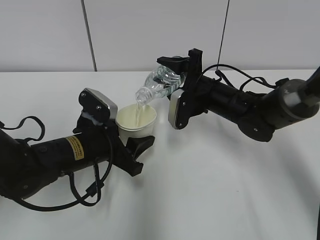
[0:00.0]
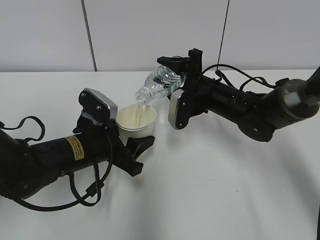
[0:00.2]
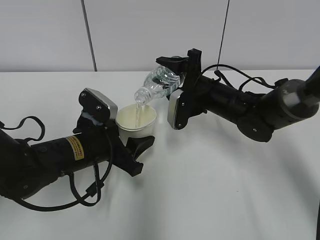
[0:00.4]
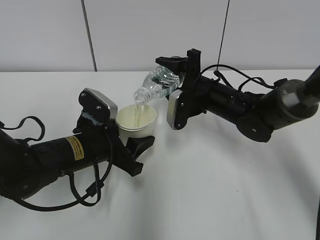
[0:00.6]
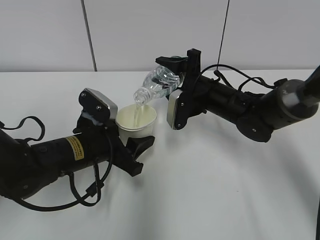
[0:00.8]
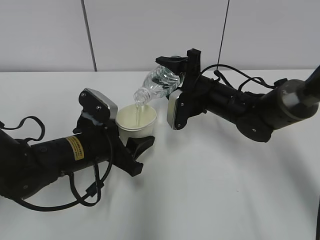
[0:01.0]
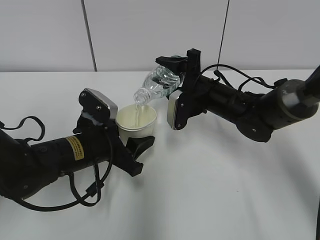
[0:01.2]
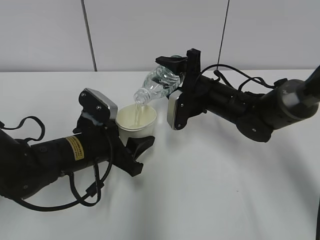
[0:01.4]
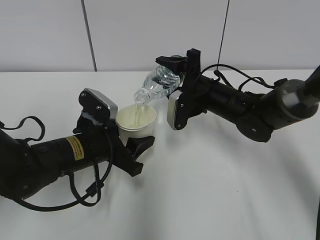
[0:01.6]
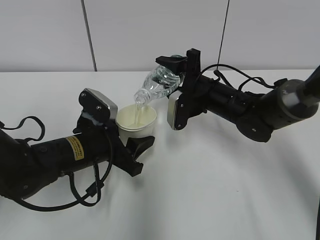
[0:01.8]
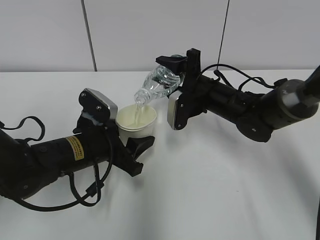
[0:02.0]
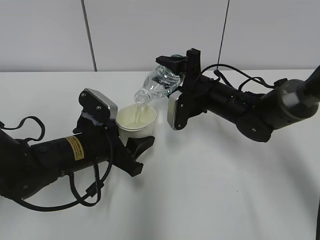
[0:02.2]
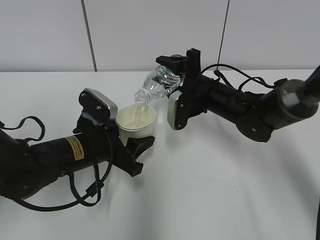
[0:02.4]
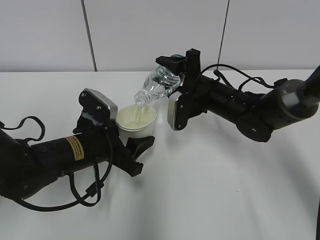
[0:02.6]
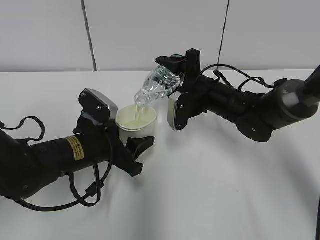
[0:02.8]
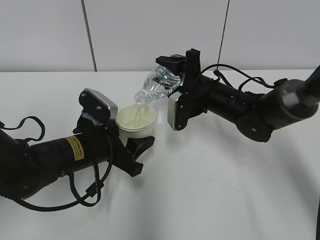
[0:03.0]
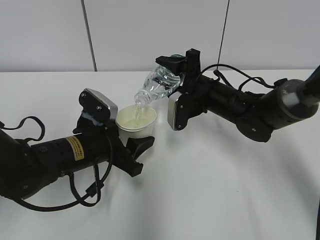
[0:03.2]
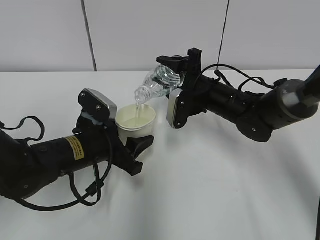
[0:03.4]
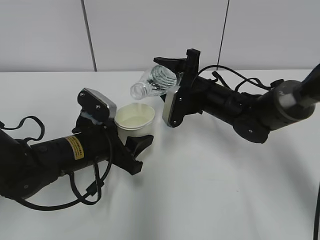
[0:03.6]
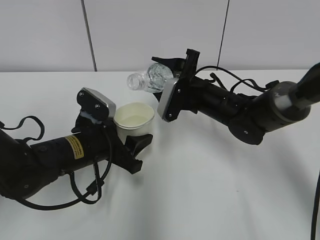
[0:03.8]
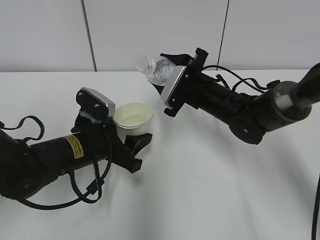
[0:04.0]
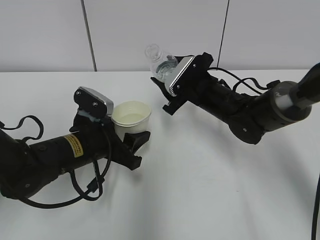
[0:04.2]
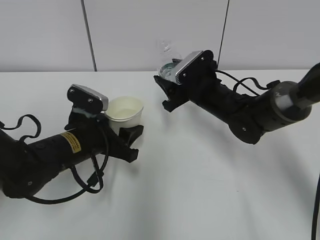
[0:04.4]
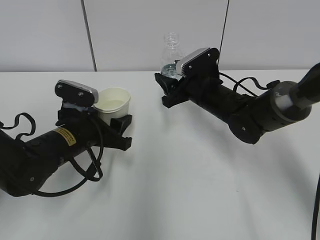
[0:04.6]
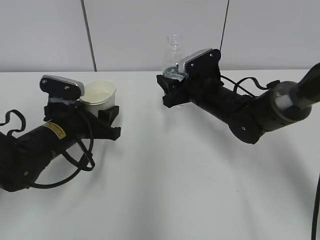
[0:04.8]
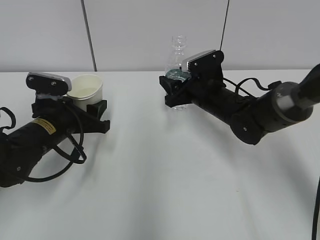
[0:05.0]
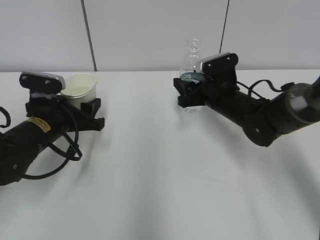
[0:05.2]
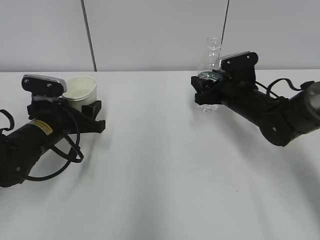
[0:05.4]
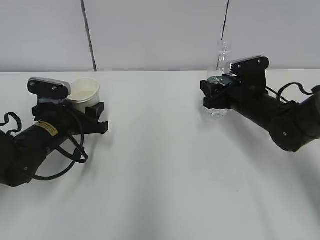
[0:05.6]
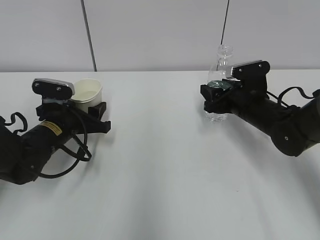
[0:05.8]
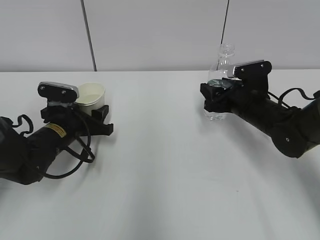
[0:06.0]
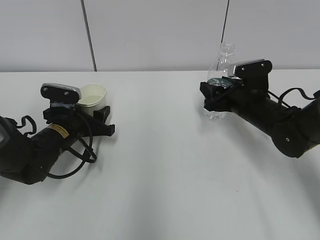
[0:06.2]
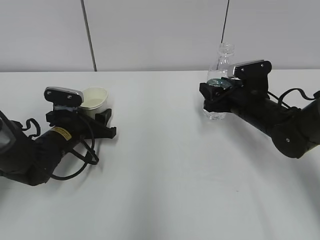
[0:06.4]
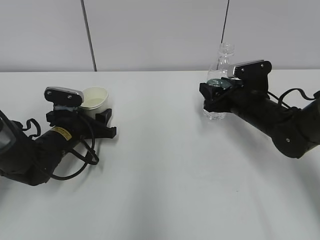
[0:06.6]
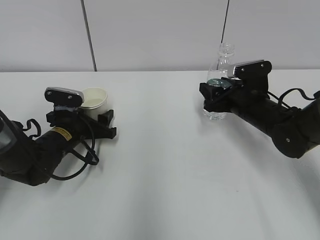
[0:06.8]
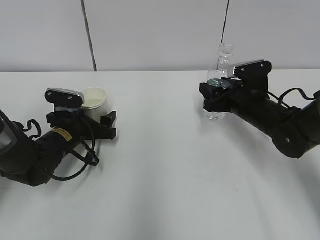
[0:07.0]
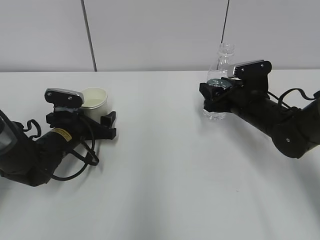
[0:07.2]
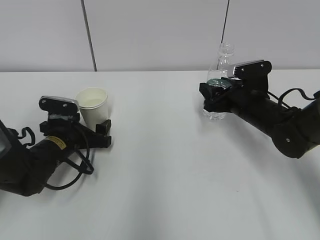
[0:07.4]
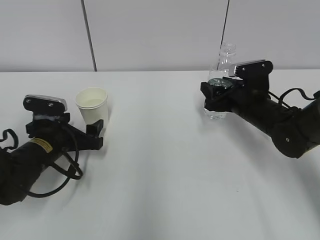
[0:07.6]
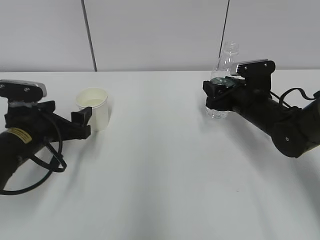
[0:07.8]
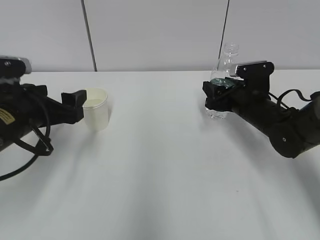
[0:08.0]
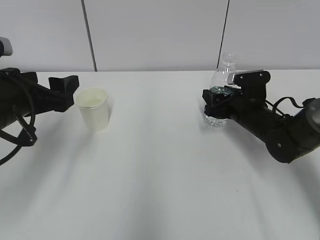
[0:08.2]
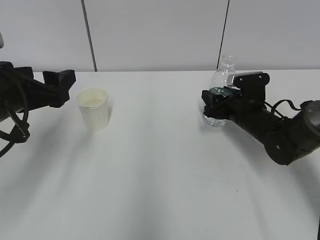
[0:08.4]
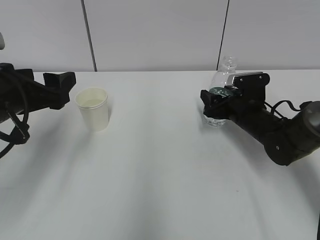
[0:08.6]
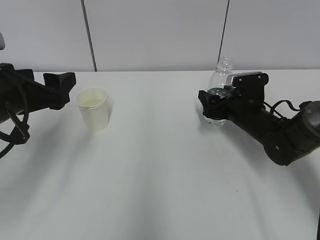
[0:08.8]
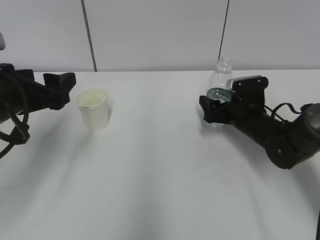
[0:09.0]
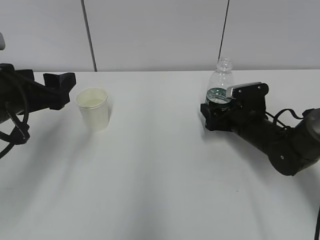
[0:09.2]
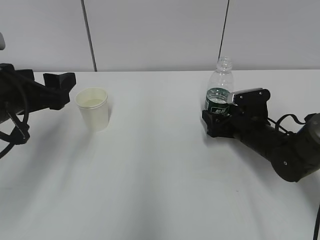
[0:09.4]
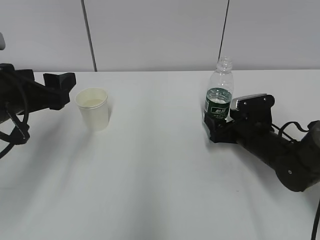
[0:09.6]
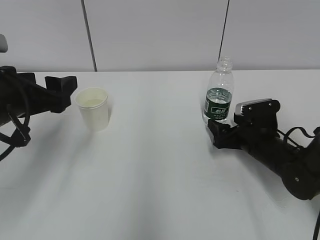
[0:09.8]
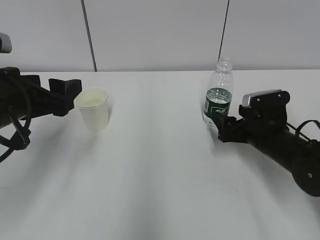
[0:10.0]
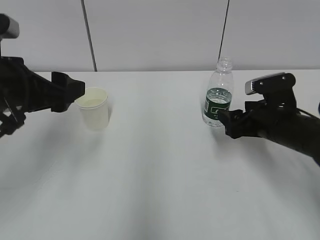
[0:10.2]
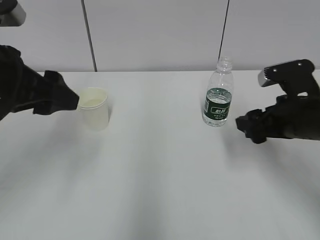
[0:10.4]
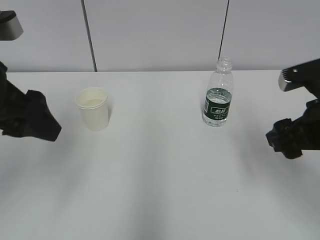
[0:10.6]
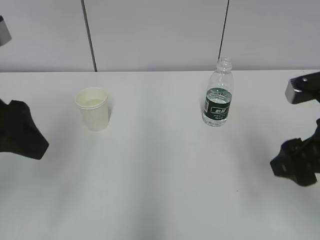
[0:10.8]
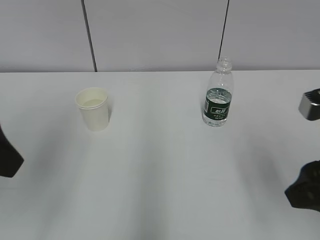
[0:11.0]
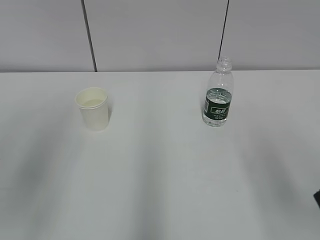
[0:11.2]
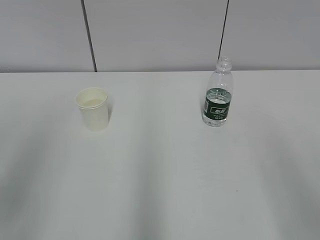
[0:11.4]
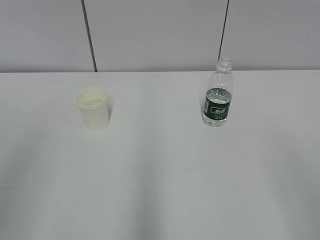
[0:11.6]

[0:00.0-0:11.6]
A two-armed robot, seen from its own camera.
Step, 0:00.0 to 0:00.6: Collect water with the right hand.
Step, 0:02.4 to 0:04.0: Place the water bottle with the right hand.
0:00.0 to 0:02.8: Both grippers stay put.
0:04.4 to 0:05.8: The left gripper goes about 10 cm to the left and forward. The right gripper goes approximately 10 cm to the right.
0:05.8 to 0:07.2: The left gripper opens up.
0:07.2 to 0:08.8: The left gripper shifts about 20 cm upward and backward. Meanwhile the right gripper opens.
0:08.8 to 0:10.2: The right gripper moves backward, roughly 10 cm.
0:10.2 to 0:11.6: The right gripper goes some 35 cm backward and upward. Meanwhile the left gripper shifts about 20 cm backward.

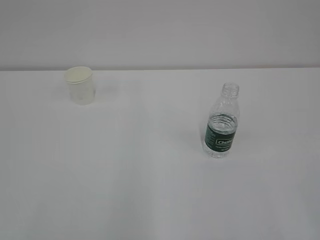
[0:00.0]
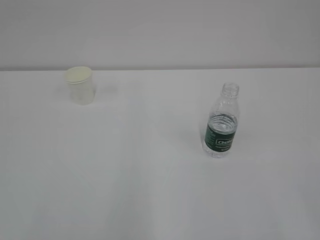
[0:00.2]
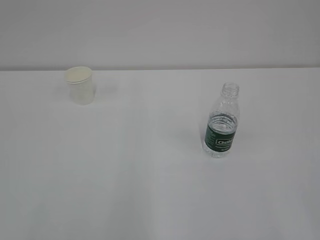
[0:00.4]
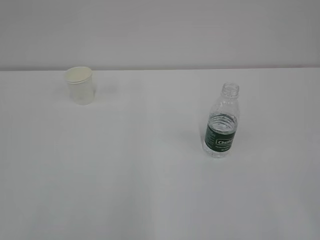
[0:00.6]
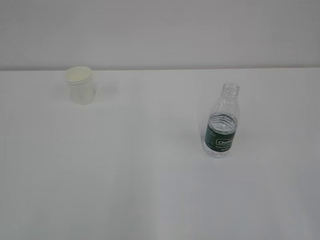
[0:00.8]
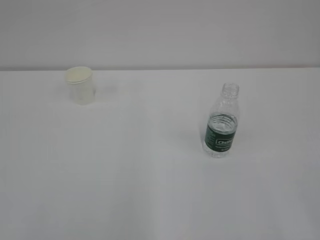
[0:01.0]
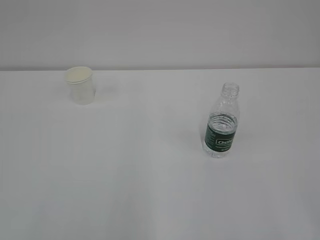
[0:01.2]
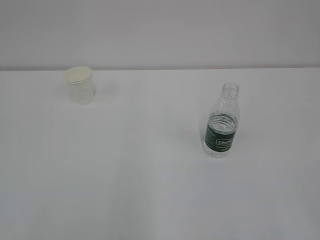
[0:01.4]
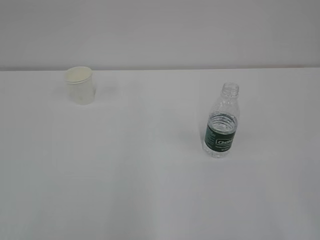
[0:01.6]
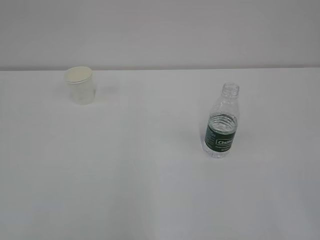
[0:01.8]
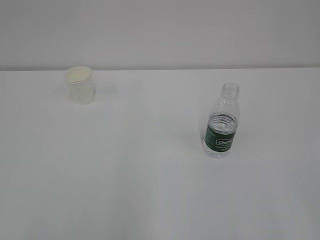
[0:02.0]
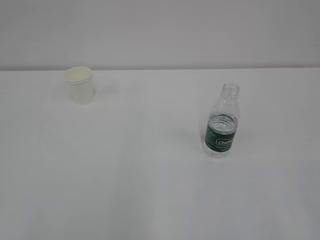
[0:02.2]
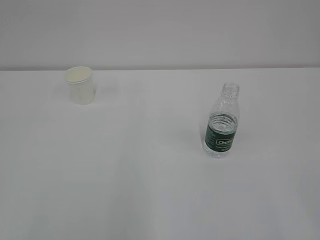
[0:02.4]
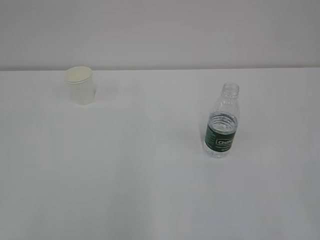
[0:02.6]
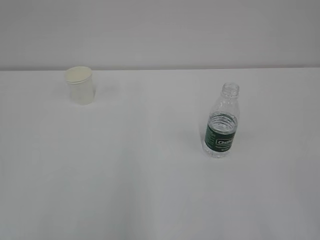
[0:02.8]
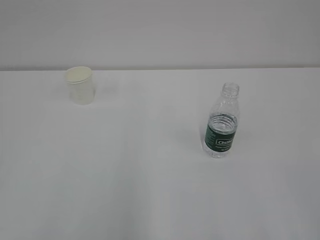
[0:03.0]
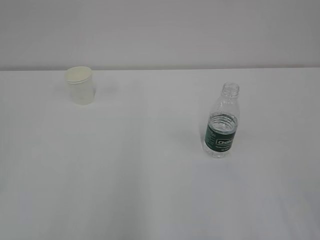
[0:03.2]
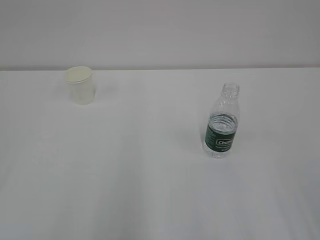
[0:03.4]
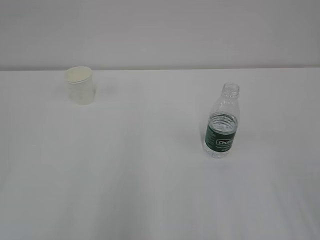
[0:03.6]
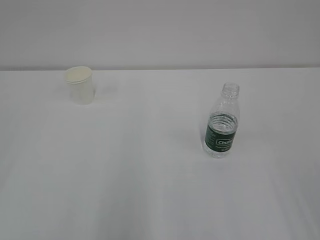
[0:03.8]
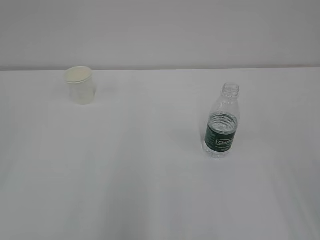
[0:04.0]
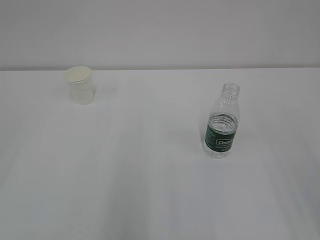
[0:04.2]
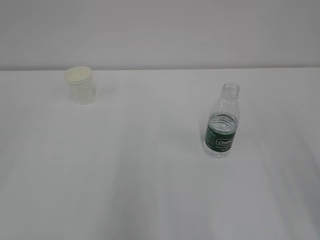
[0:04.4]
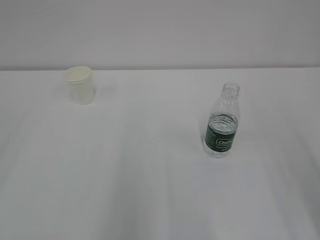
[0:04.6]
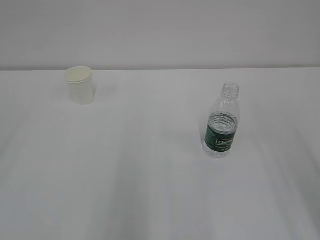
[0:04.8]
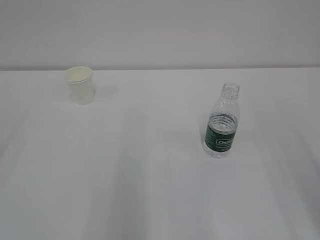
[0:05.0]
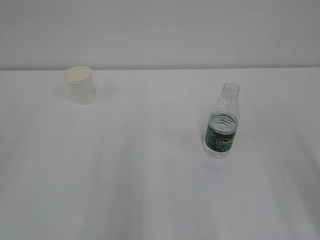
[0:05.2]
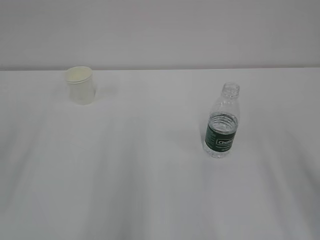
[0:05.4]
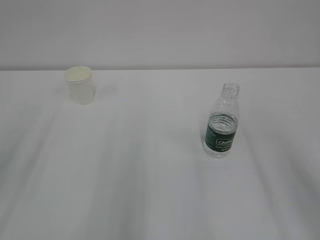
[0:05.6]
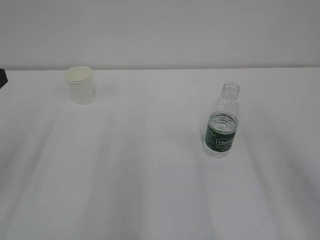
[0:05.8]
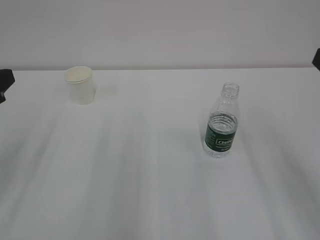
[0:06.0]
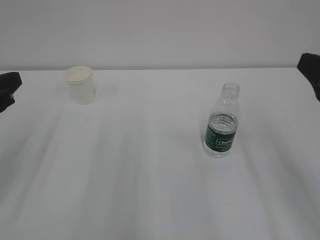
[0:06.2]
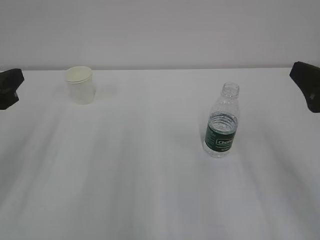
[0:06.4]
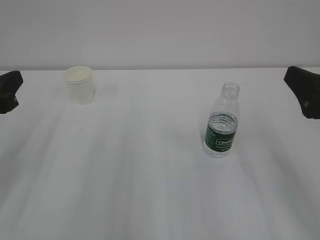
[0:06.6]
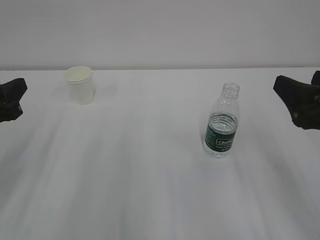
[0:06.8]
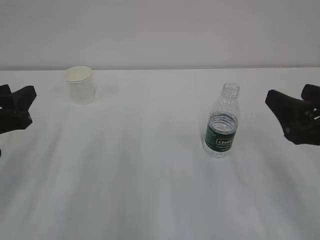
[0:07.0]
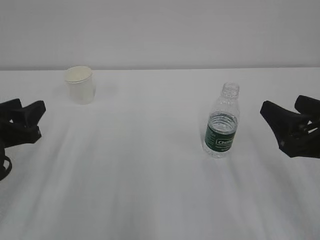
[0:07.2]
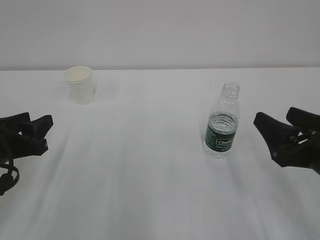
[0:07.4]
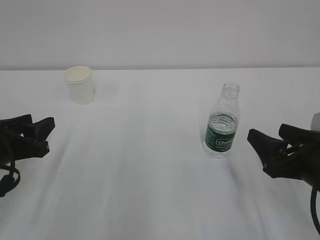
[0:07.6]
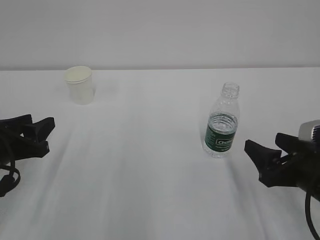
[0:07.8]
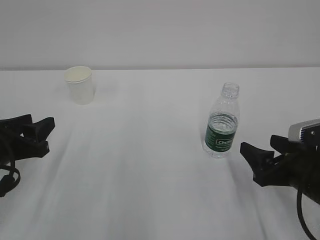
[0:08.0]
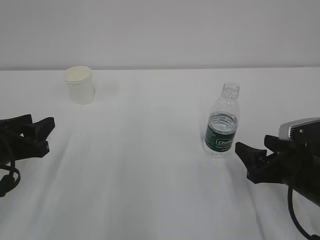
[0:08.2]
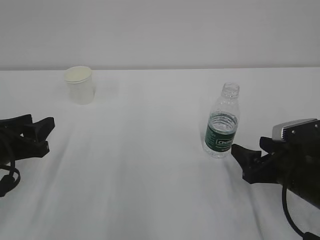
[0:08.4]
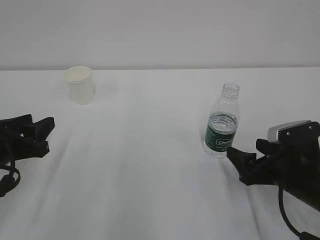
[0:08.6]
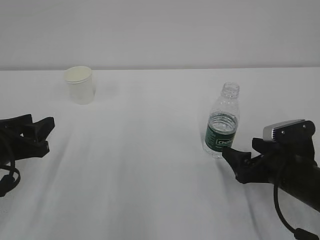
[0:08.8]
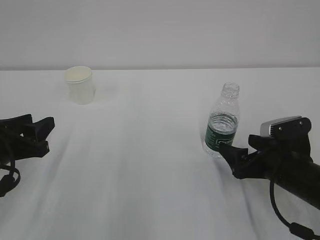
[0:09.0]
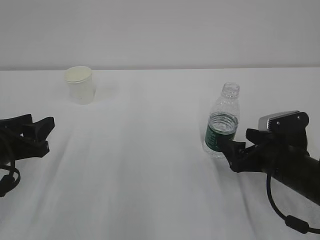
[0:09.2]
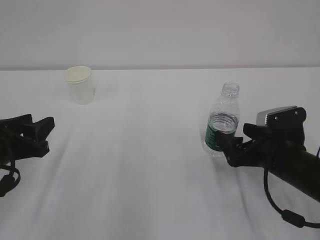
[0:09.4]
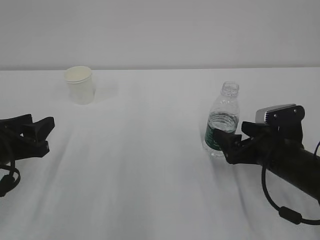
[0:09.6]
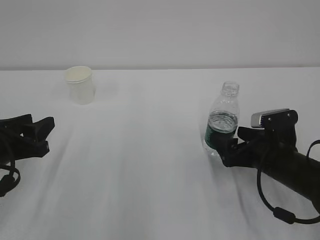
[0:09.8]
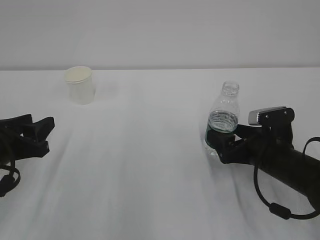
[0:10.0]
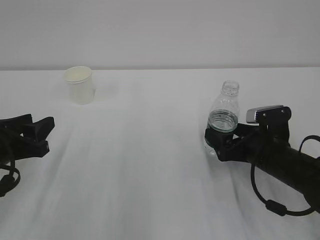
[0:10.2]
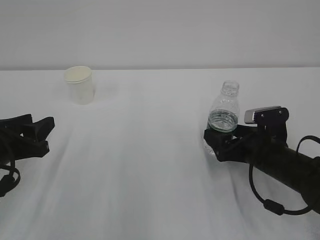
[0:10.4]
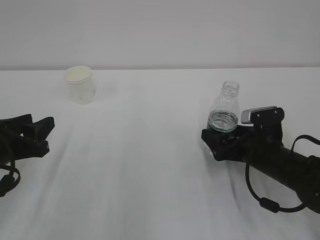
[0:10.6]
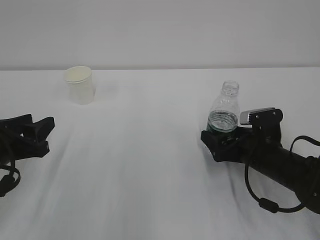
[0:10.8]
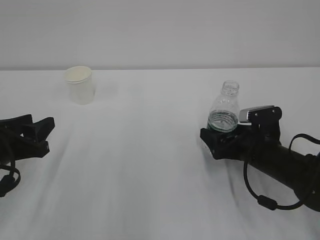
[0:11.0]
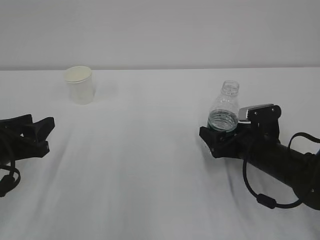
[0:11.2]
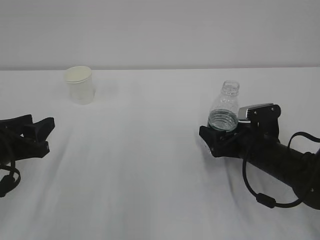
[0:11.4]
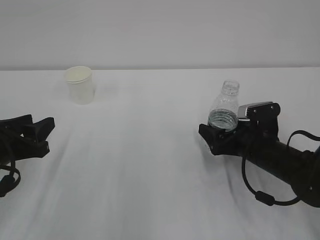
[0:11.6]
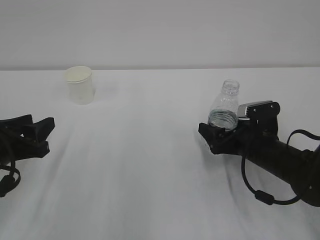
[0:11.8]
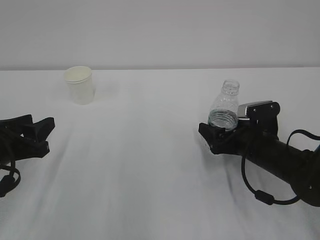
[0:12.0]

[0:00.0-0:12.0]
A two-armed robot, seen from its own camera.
0:06.0 to 0:07.6: Both grippers move downward, approximately 15 cm.
0:07.6 to 0:09.0: The right gripper is displaced downward and forward by some 10 cm.
0:09.0 to 0:10.4: There are only small adjustments of the grippers.
0:10.4 to 0:12.0: The grippers stay close to where they were, moving slightly.
